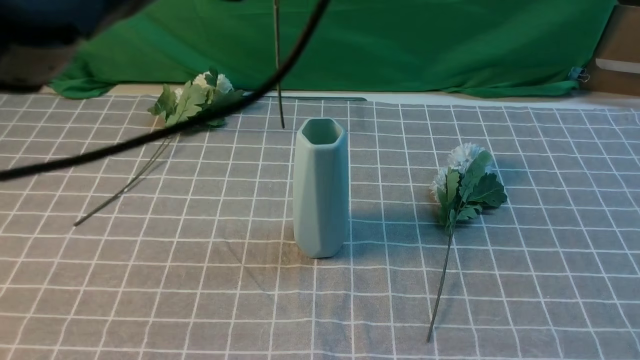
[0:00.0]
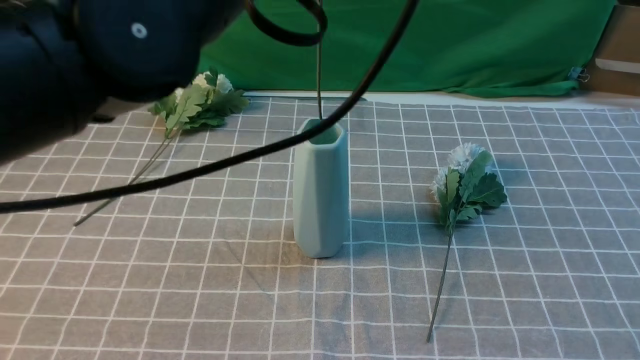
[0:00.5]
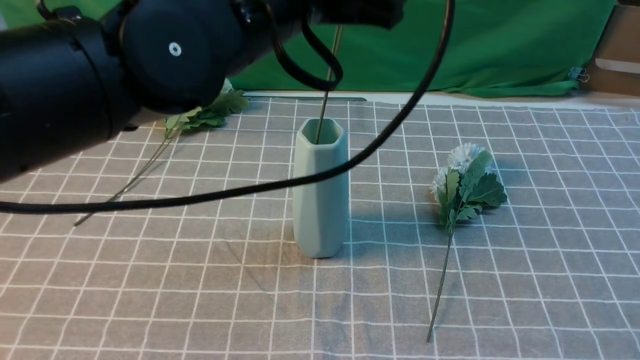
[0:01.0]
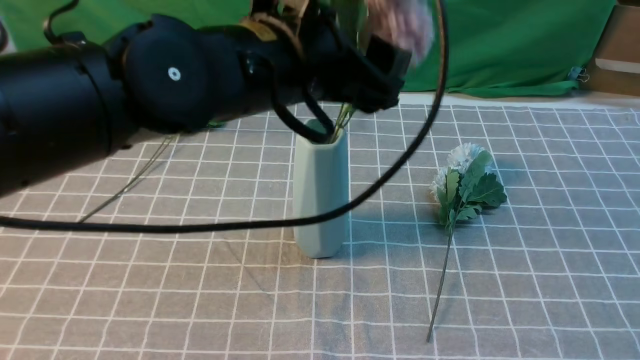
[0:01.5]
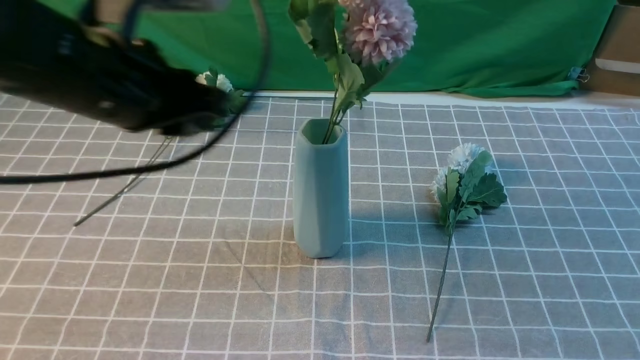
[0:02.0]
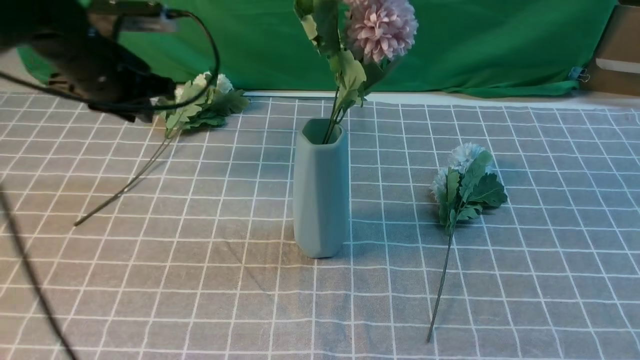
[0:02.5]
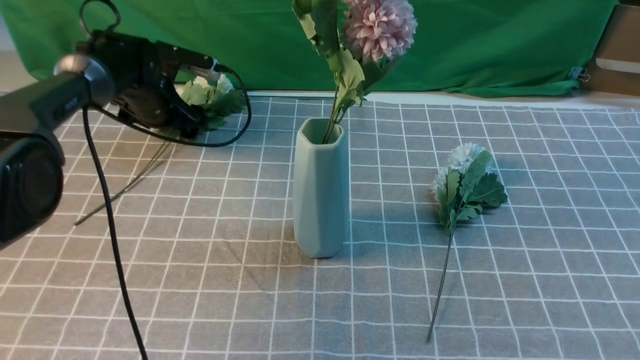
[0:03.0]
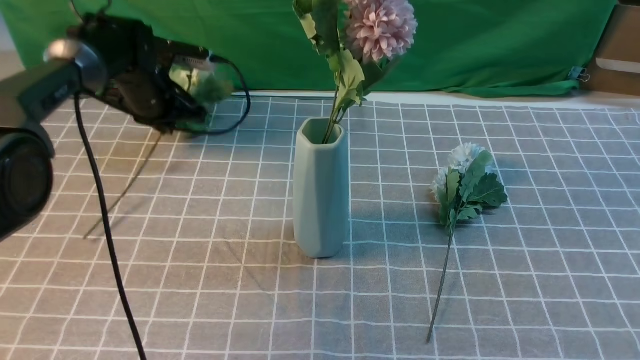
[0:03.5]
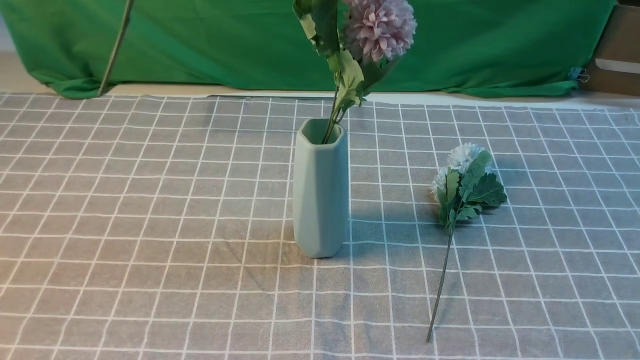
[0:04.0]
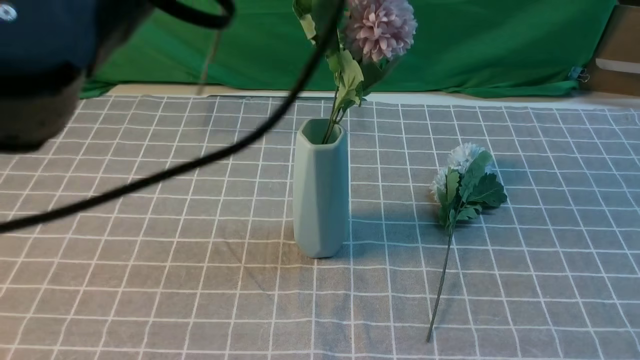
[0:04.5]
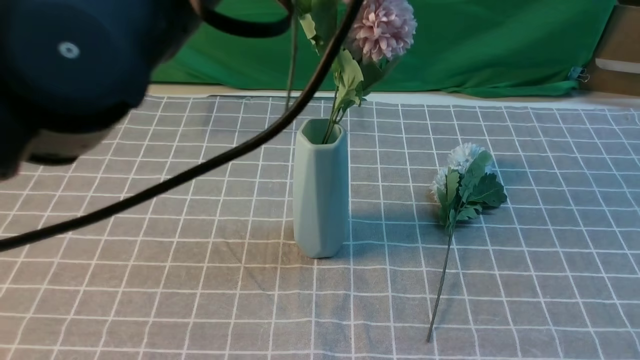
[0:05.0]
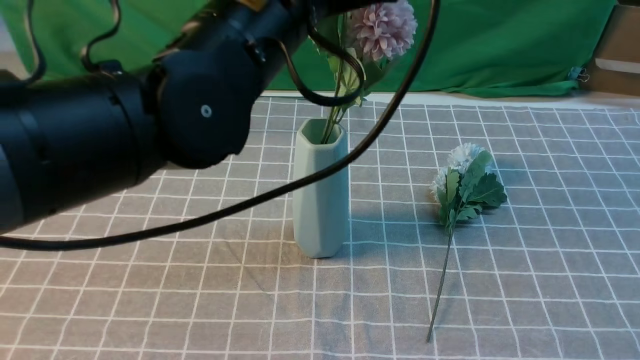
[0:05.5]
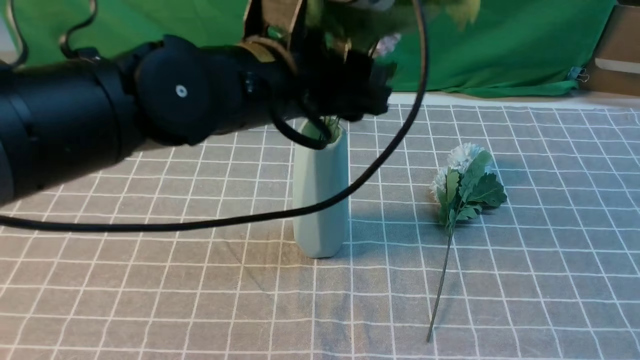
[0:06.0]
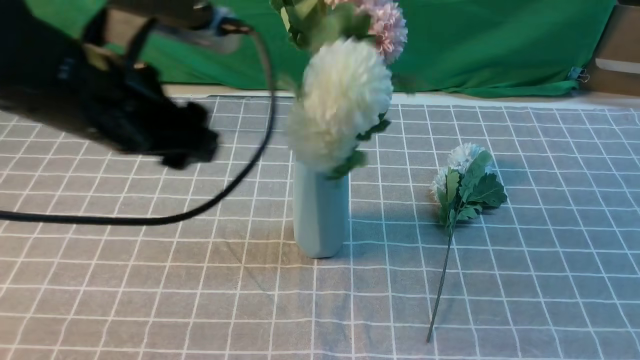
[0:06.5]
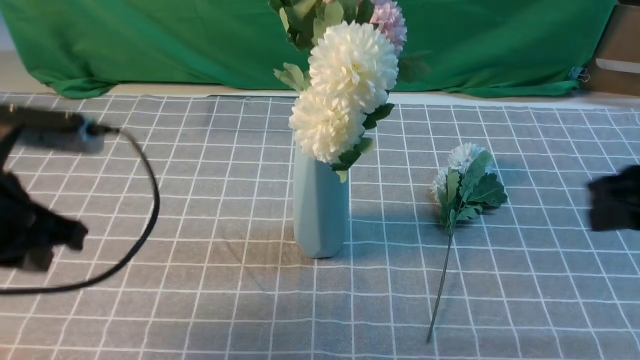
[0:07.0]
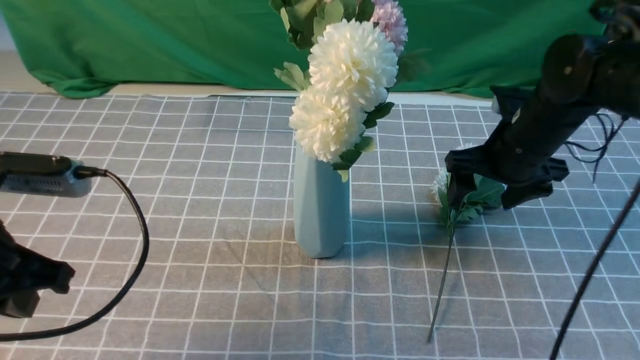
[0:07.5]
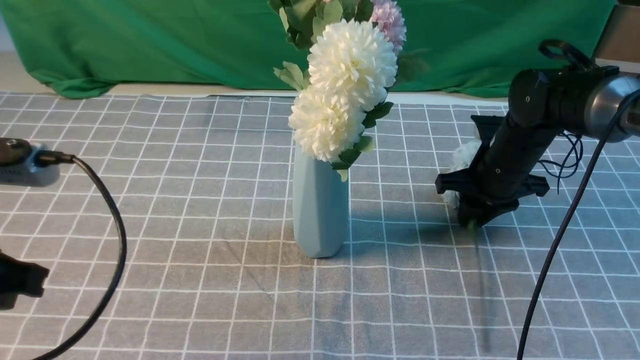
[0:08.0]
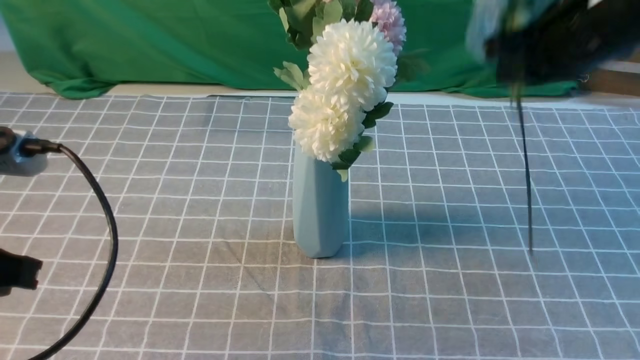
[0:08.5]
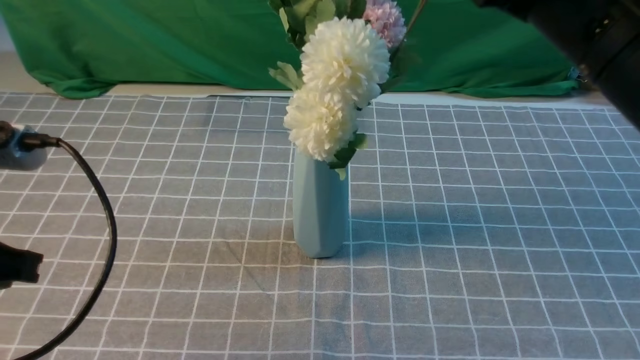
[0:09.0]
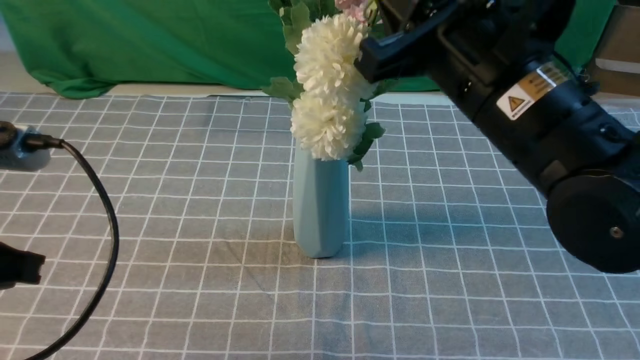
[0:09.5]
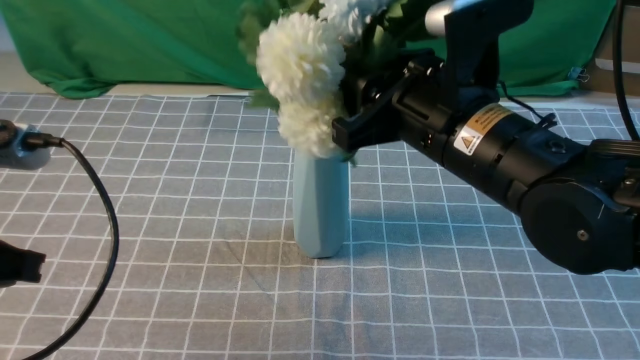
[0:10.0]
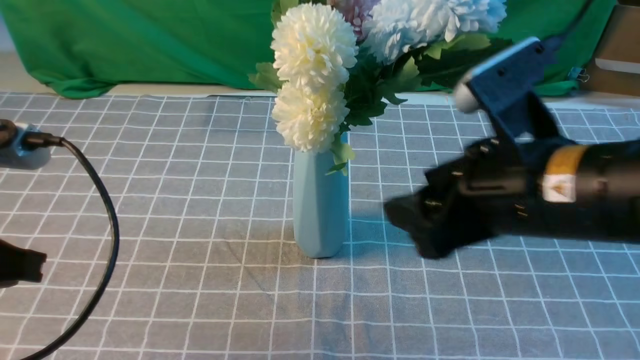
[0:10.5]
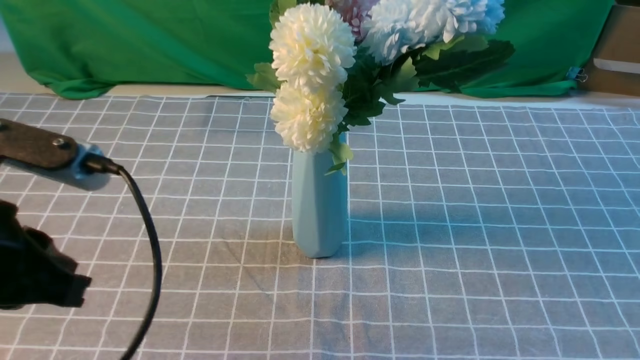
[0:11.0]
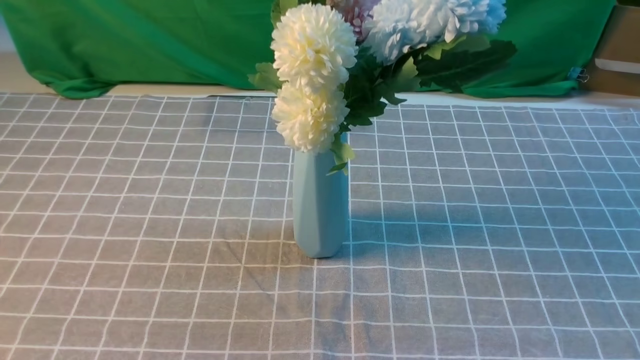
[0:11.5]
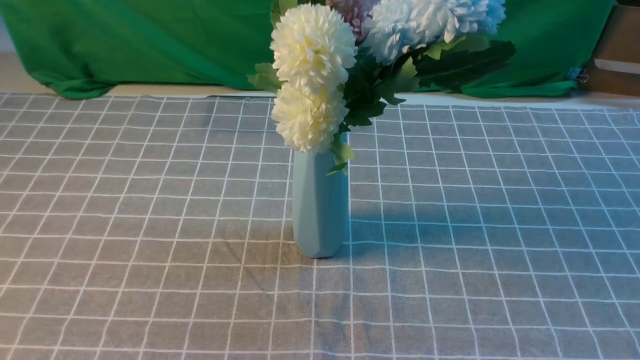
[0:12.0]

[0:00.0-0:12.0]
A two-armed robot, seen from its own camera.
Task of the whole recording: insert the flowers into the vase on the table with the grey tablecloth.
Step, 0:00.0 to 0:01.5: use the left arm to insert the flowers into the vase.
Step, 0:02.0 to 0:03.0: use the left arm to grab a bunch of fresh flowers.
Step, 0:03.5 to 0:06.0: use the left arm to insert the flowers into the vase.
Step, 0:06.5 to 0:07.5: use the right arm to grab a bunch of fresh flowers.
Step, 0:08.5 to 0:10.0: use the right arm to insert the flowers into the vase.
0:00.0 to 0:02.0: The left gripper goes approximately 15 cm downward and to the left, and opens and closes again.
0:02.0 to 0:04.0: The left gripper moves upward and forward, roughly 15 cm, and opens and closes again.
0:04.0 to 0:06.0: The left gripper goes some 20 cm downward, to the right and backward, and opens its fingers.
0:06.0 to 0:08.0: The left gripper moves to the left and backward, roughly 25 cm, and closes. Meanwhile the right gripper heads forward and downward, covering roughly 35 cm, and opens, then closes once more.
0:08.0 to 0:10.0: The right gripper is displaced backward, upward and to the left by some 25 cm, and closes, then opens again.
0:10.0 to 0:12.0: The left gripper heads backward, covering approximately 15 cm. Meanwhile the right gripper heads backward and to the right, covering approximately 35 cm, and closes up.
